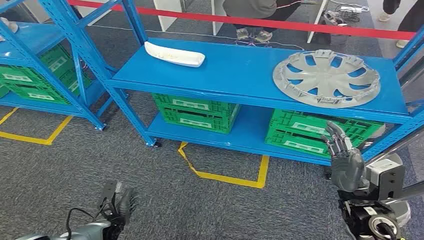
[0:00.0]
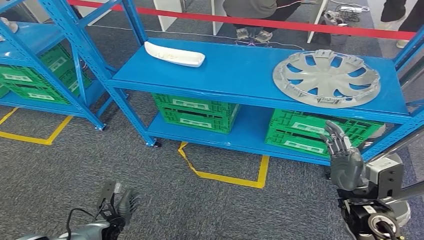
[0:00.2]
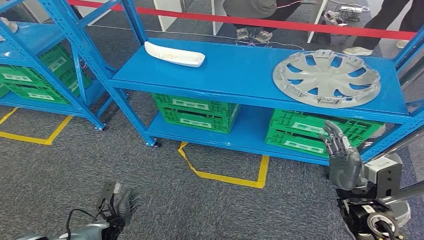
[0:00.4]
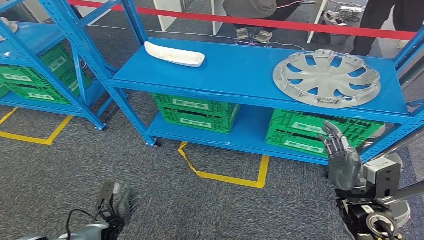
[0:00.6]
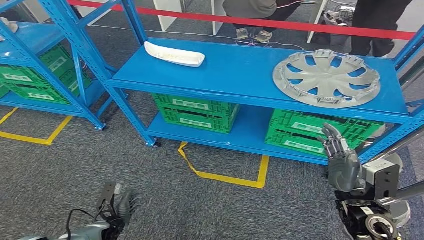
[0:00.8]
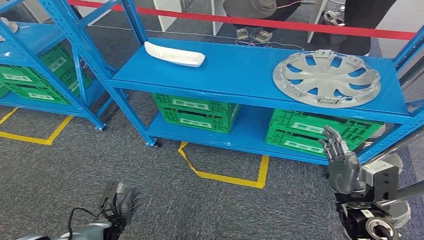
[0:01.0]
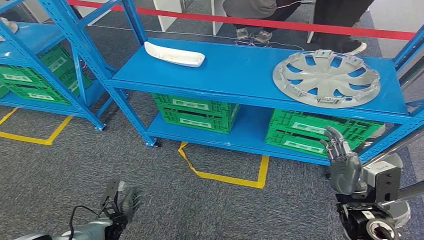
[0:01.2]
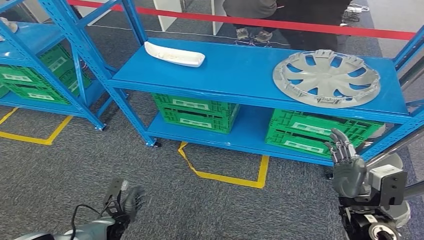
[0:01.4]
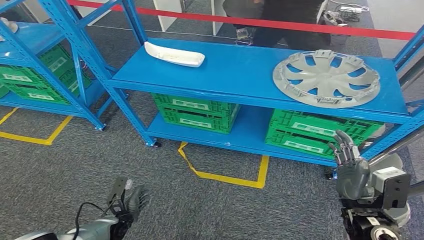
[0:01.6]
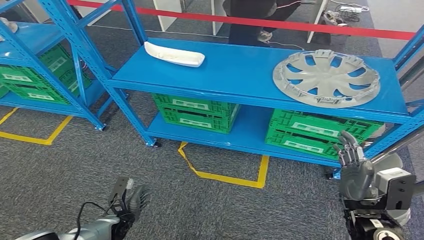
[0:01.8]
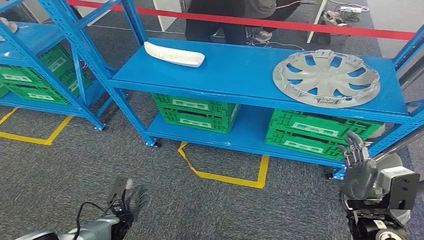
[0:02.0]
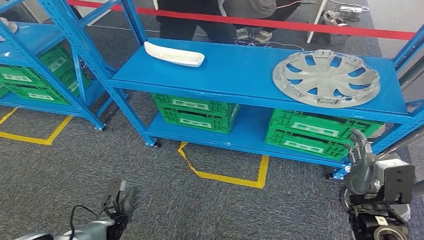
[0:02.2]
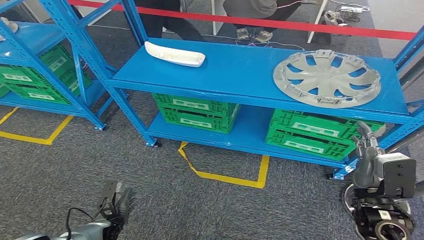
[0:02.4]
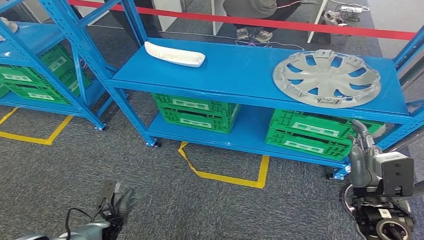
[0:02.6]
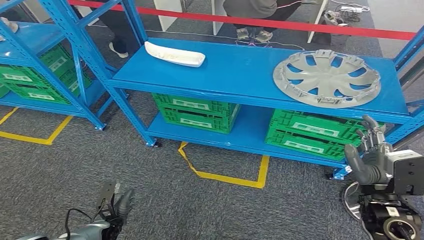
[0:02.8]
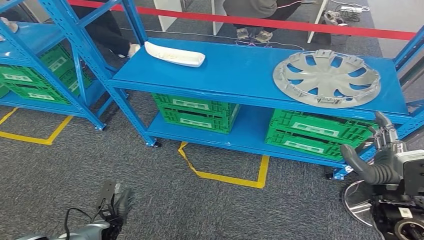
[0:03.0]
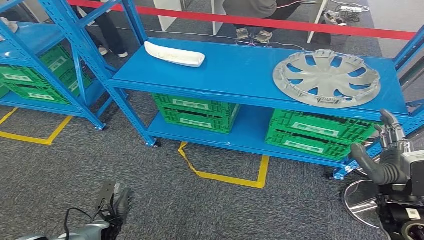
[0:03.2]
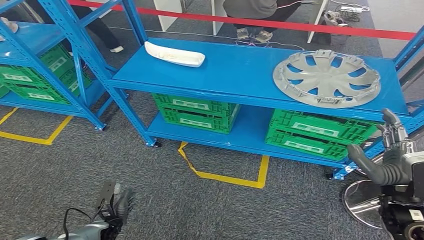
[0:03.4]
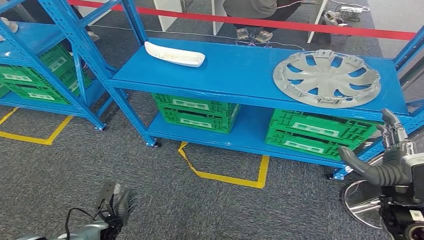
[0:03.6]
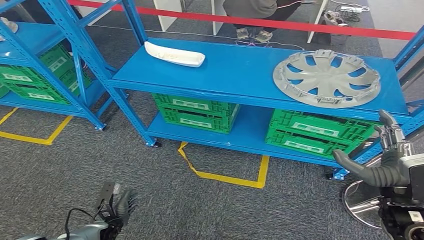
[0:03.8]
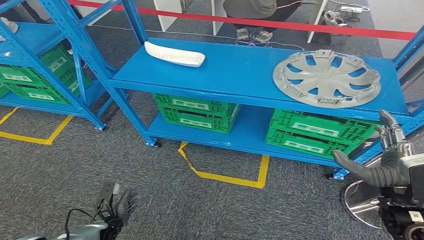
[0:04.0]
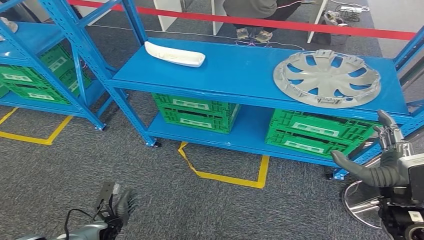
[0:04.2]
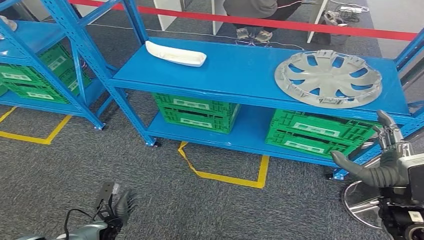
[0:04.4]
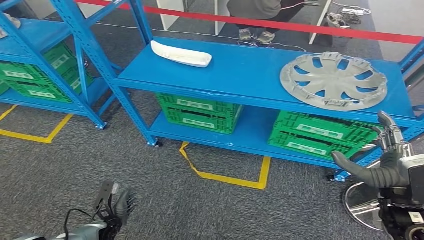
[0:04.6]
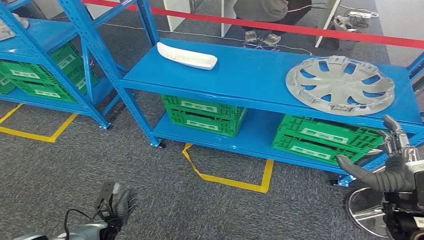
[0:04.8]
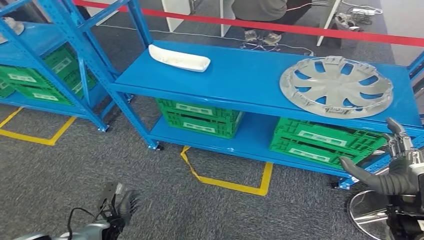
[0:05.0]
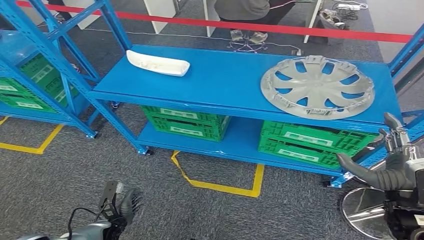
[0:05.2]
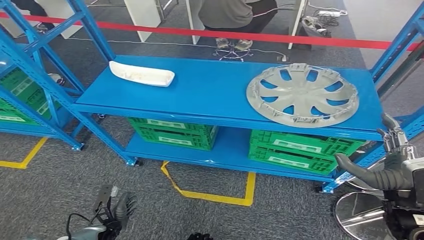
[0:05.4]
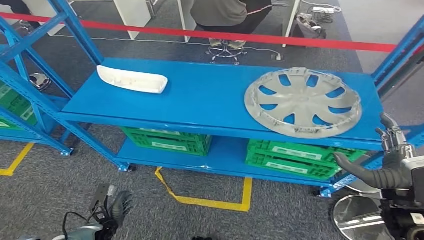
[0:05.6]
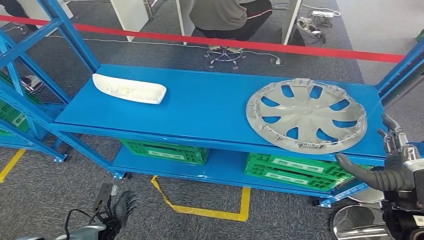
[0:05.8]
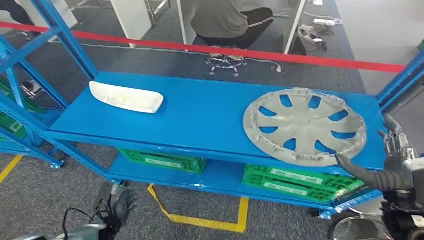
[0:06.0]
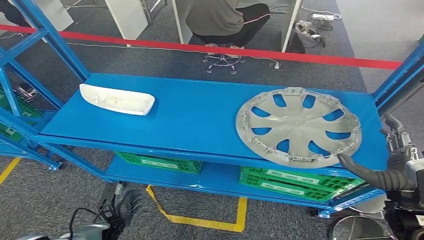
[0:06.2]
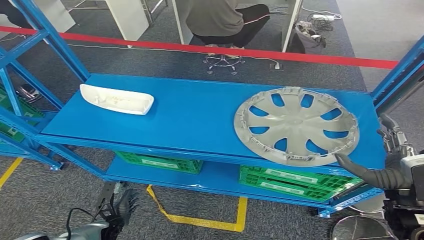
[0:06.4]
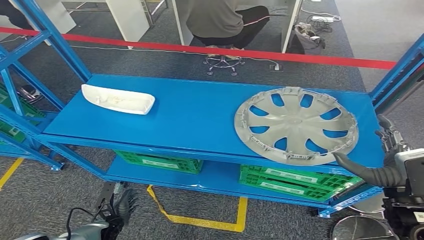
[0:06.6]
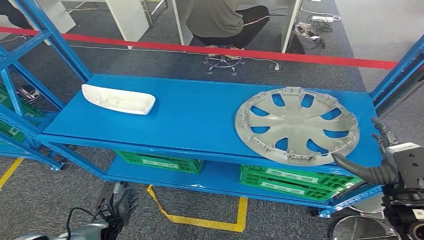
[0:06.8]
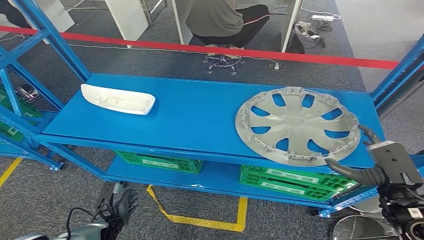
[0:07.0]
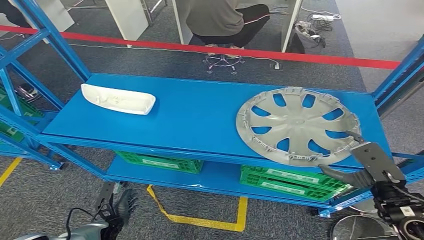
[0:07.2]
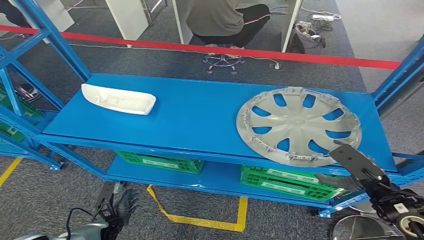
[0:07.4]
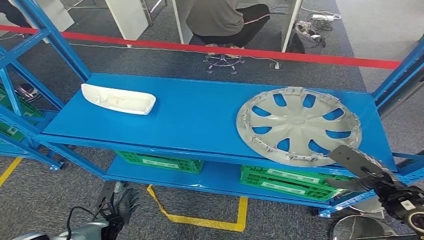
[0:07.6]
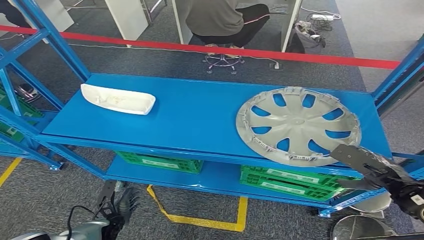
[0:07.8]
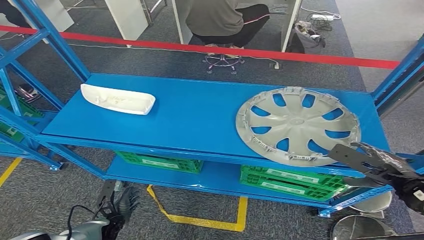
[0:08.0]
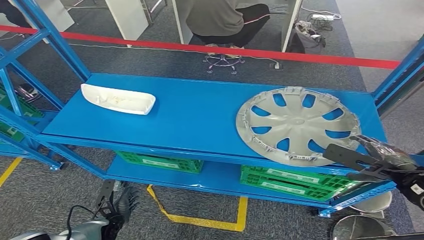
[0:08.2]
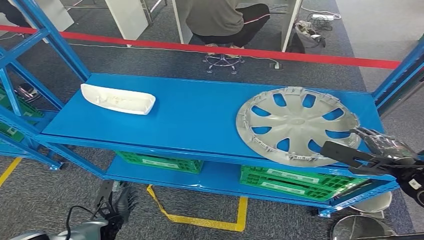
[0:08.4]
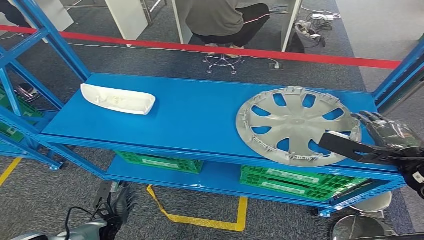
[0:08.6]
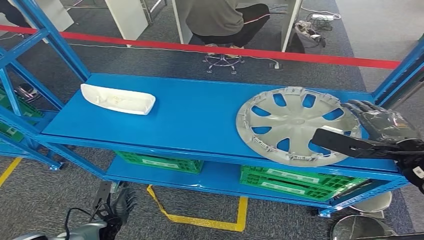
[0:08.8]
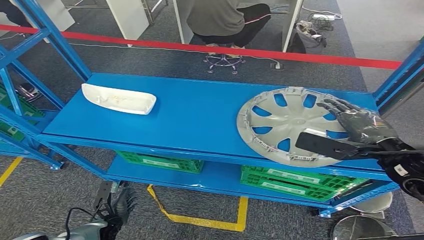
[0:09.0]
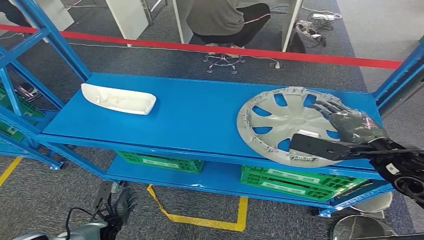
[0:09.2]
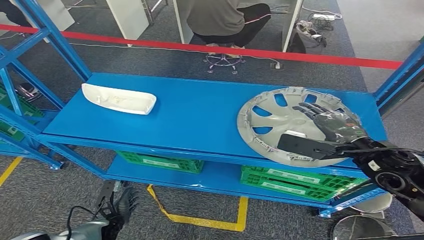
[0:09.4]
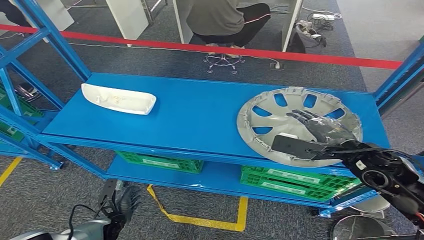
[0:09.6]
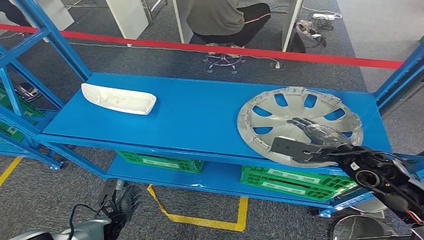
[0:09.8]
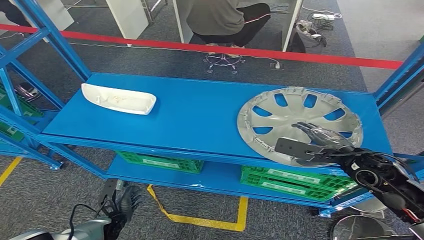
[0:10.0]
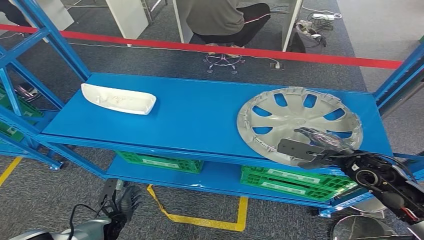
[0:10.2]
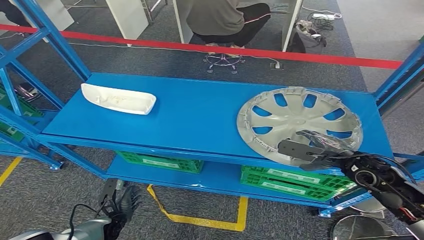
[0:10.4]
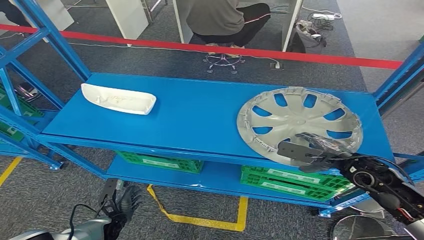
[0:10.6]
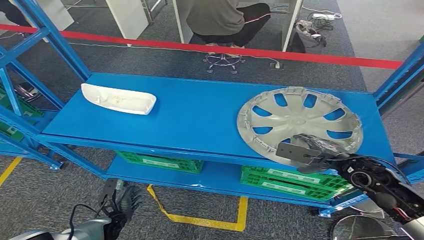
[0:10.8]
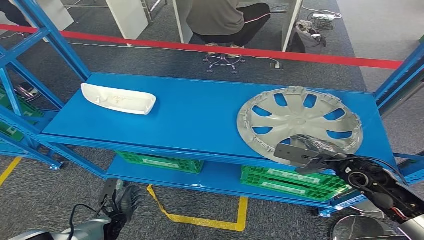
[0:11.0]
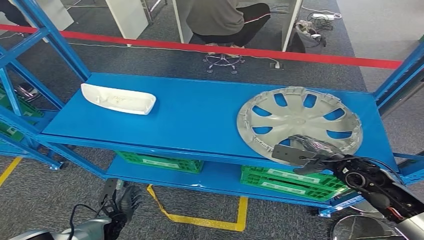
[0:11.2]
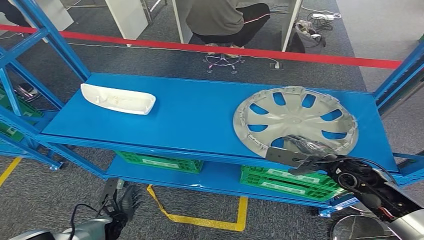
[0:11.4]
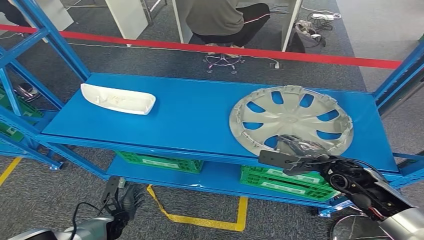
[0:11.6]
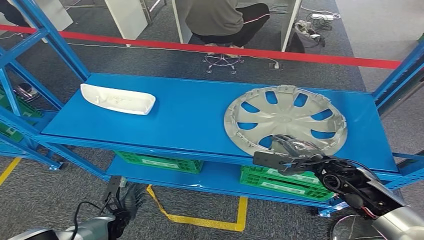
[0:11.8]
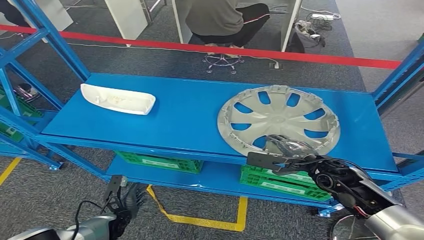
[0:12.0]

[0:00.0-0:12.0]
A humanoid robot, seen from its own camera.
1.6 to 3.0 s: The right hand shifts approximately 5 cm upward.
3.0 to 4.4 s: The hands move only a little.
7.6 to 9.0 s: The right hand travels upward by some 10 cm.
9.0 to 10.4 s: The right hand heads downward, covering approximately 10 cm.
10.4 to 12.0 s: The right hand is displaced to the left by about 5 cm.

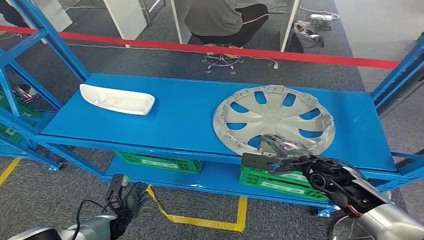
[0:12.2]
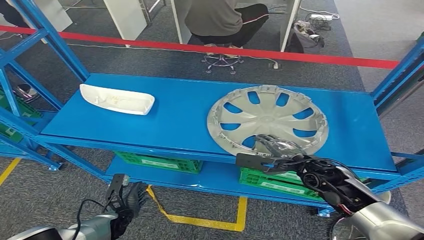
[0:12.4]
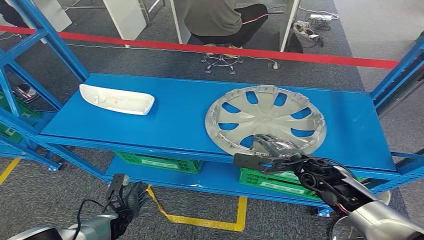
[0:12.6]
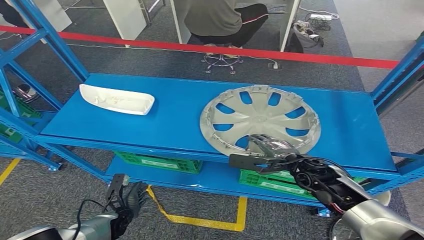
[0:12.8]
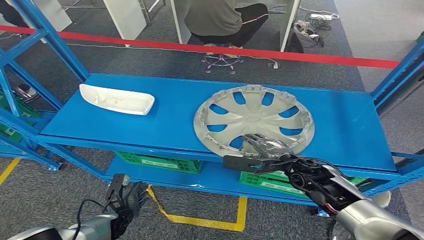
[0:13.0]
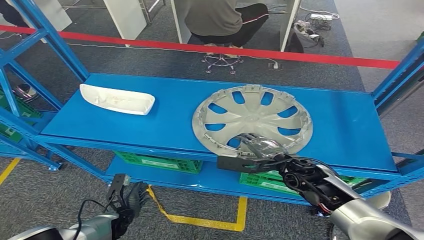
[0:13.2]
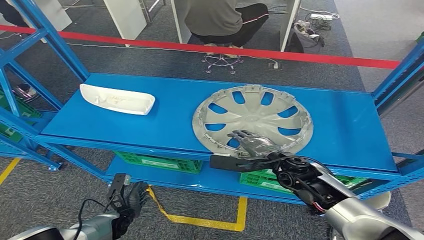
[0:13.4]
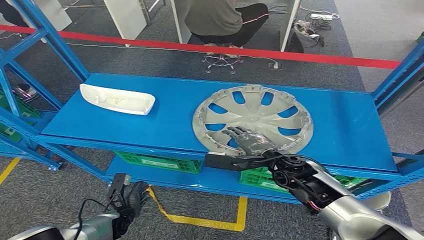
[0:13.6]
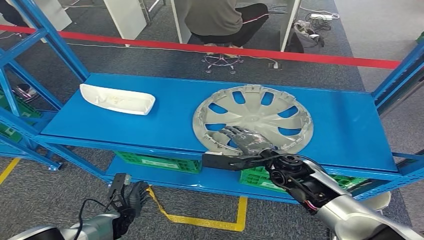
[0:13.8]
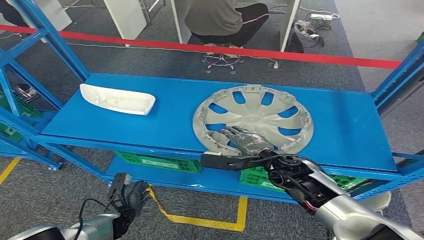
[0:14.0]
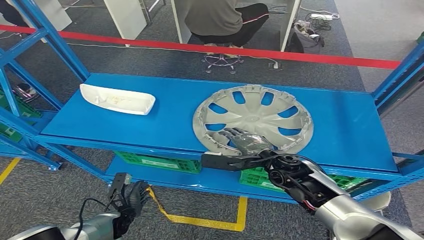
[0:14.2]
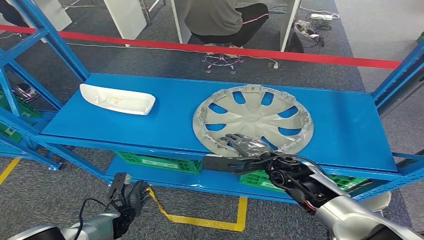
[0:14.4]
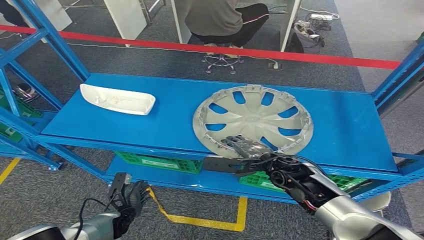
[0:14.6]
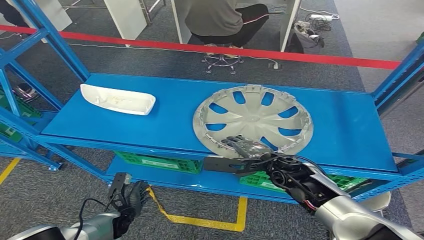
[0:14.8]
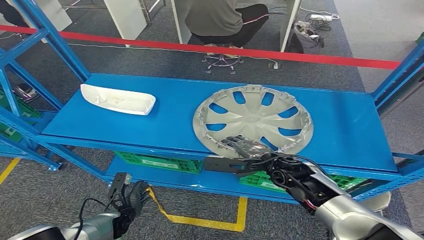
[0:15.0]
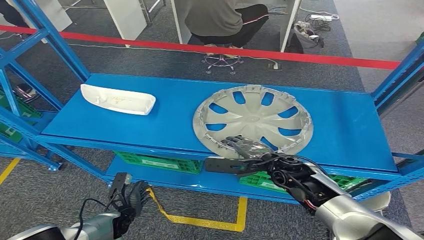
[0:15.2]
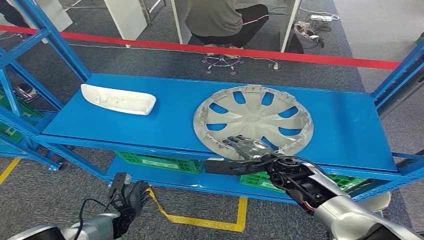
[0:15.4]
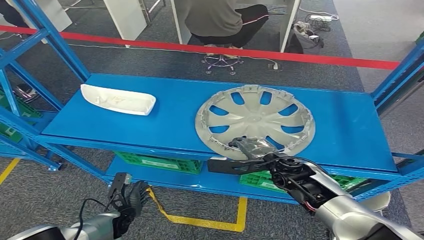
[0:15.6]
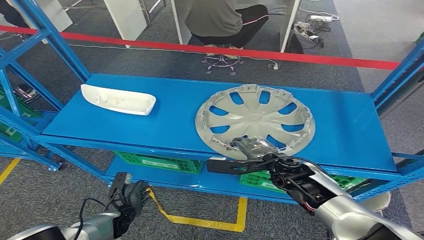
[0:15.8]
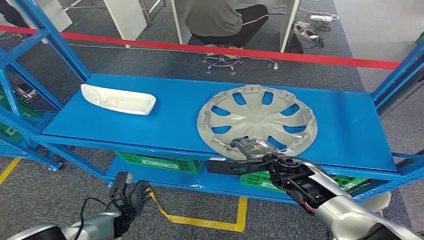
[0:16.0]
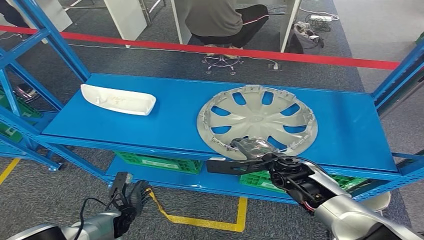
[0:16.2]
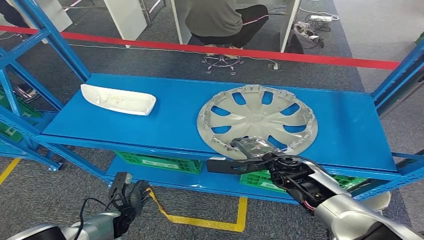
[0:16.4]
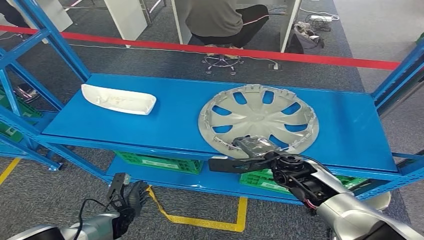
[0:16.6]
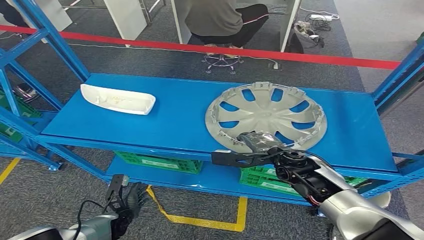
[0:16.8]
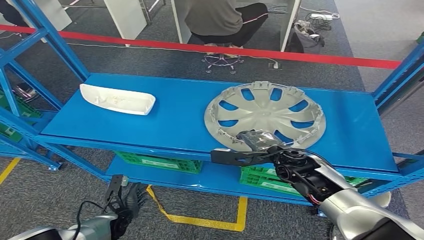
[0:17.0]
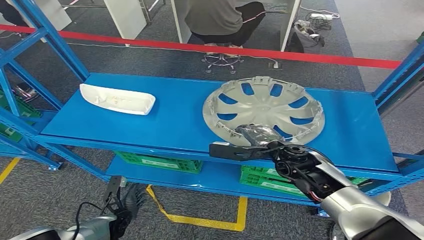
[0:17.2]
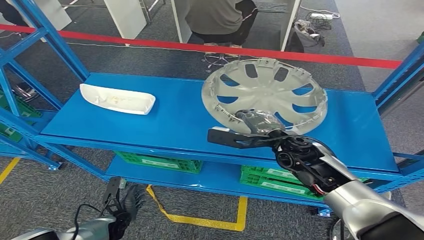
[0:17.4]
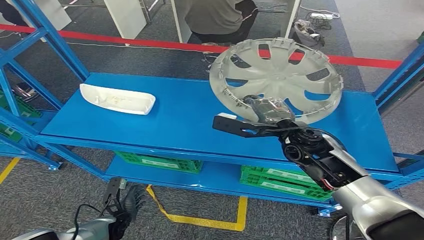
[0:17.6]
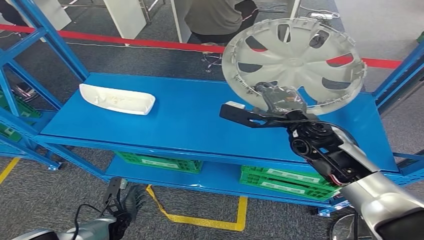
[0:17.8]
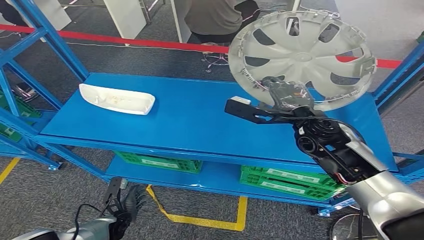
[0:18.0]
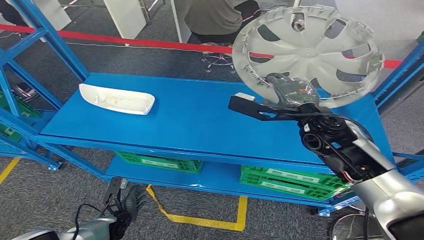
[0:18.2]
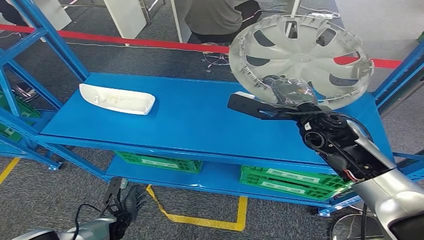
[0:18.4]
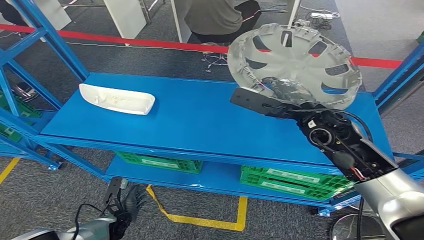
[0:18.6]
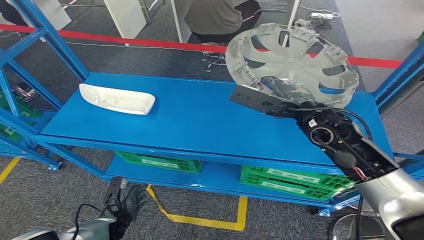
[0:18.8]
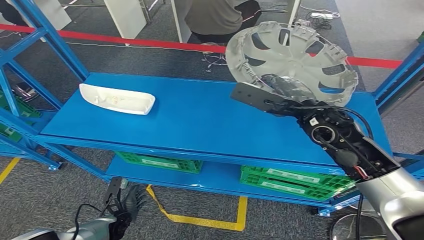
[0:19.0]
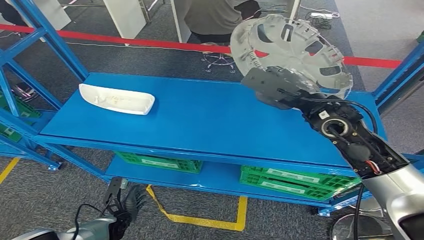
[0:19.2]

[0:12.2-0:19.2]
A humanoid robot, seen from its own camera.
Step, 12.2 to 18.0 s: Take small components from the rack.
12.2 to 13.6 s: The right hand goes about 10 cm to the left.
13.6 to 16.4 s: The hands move only a little.
17.8 to 19.2 s: The right hand shifts approximately 5 cm upward.
